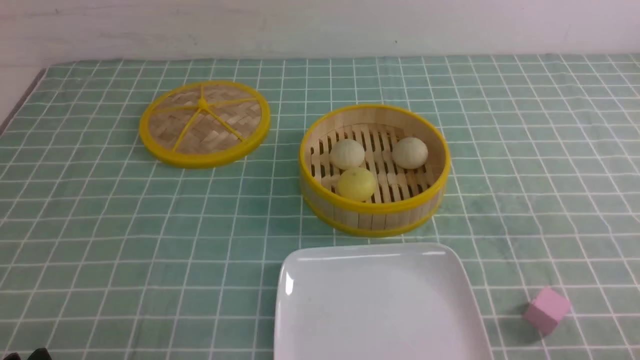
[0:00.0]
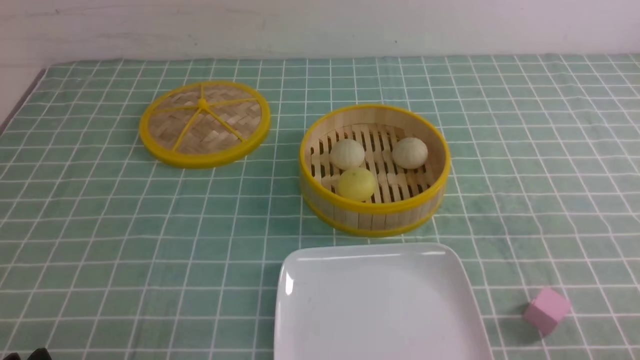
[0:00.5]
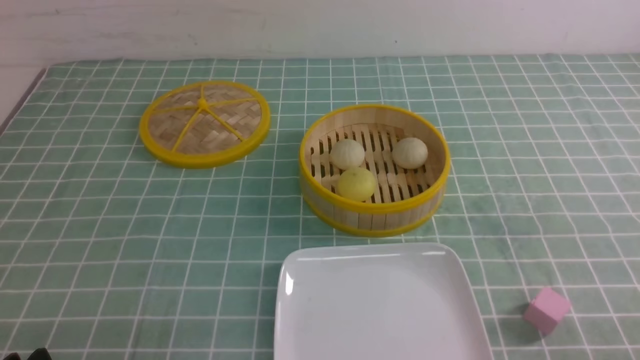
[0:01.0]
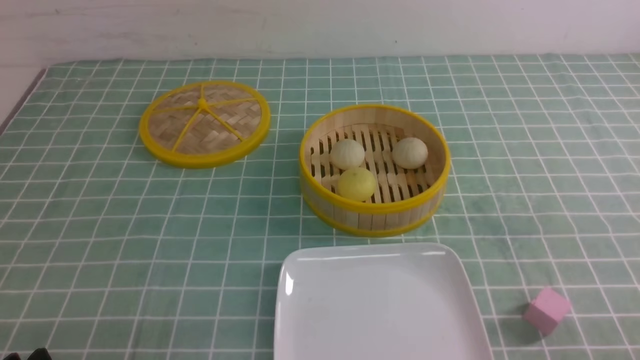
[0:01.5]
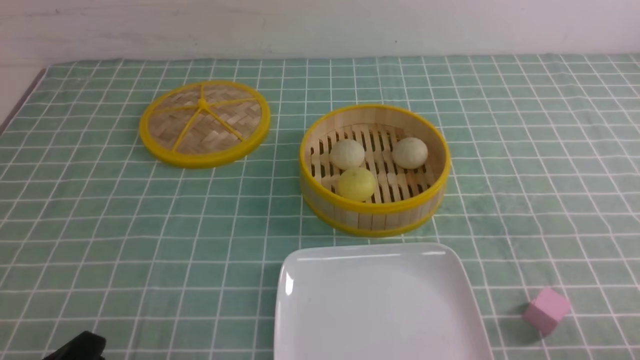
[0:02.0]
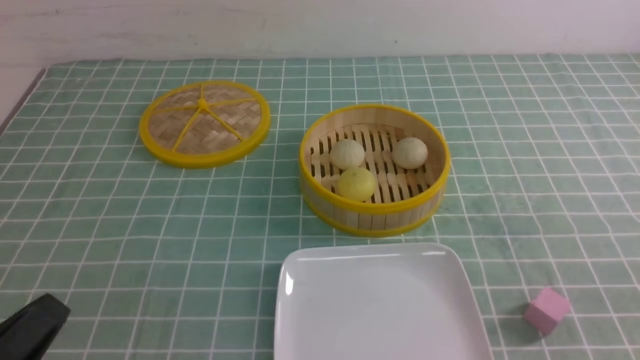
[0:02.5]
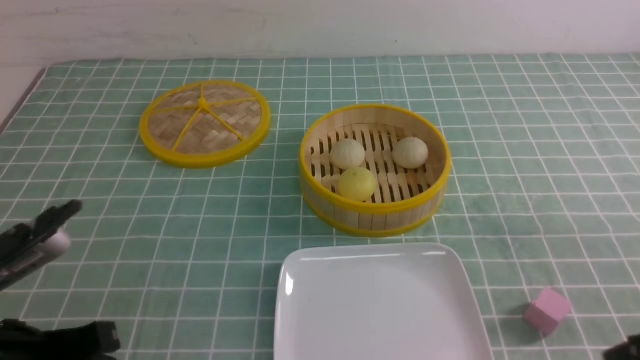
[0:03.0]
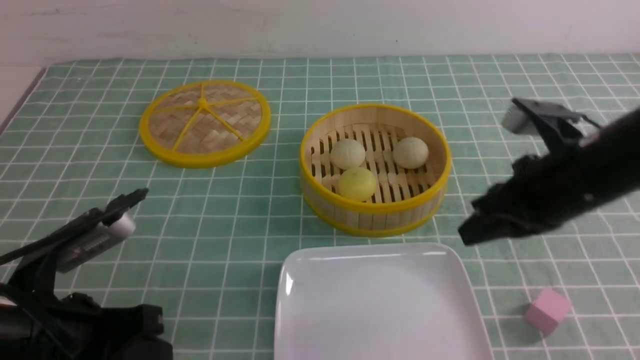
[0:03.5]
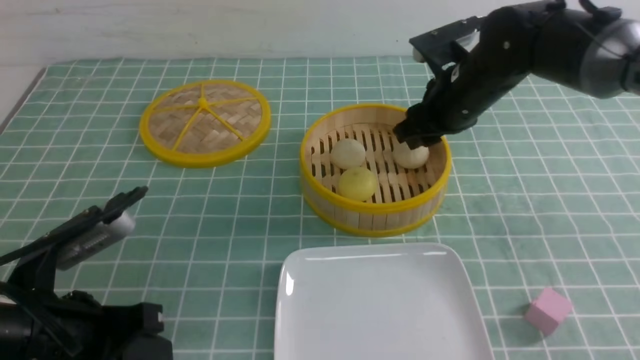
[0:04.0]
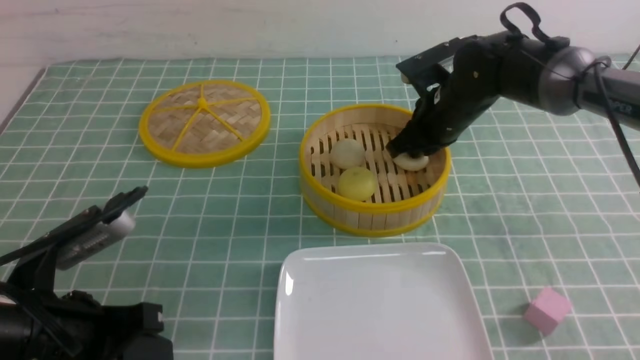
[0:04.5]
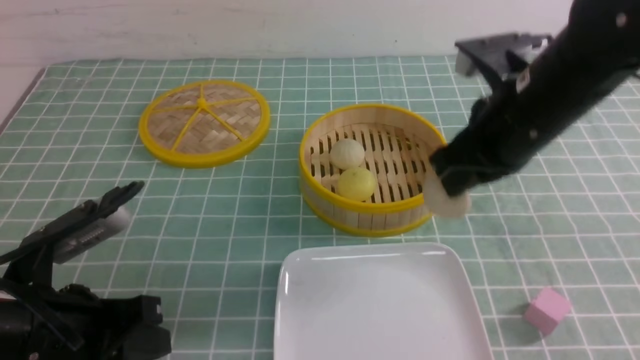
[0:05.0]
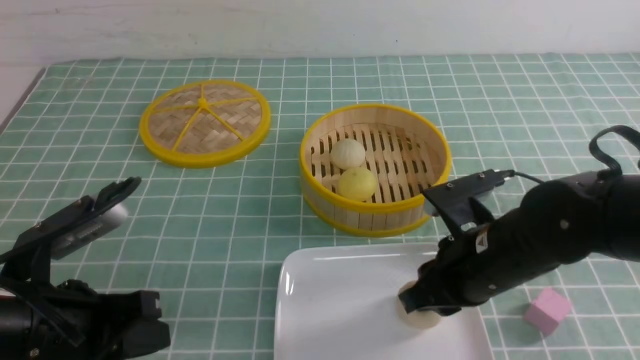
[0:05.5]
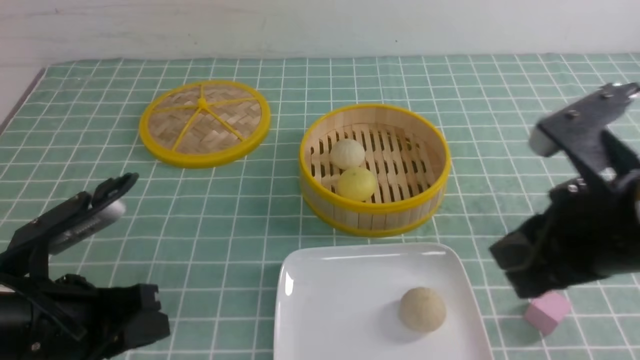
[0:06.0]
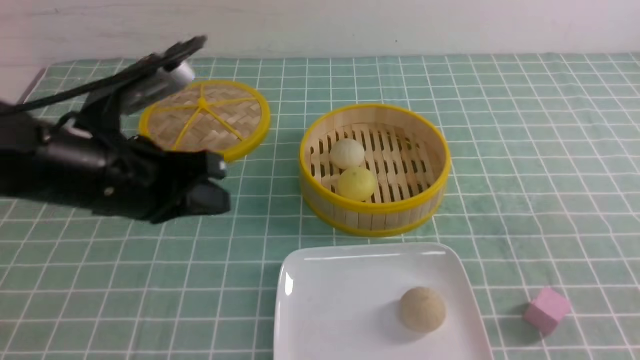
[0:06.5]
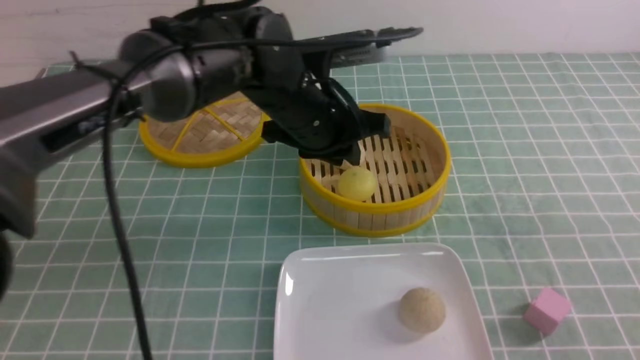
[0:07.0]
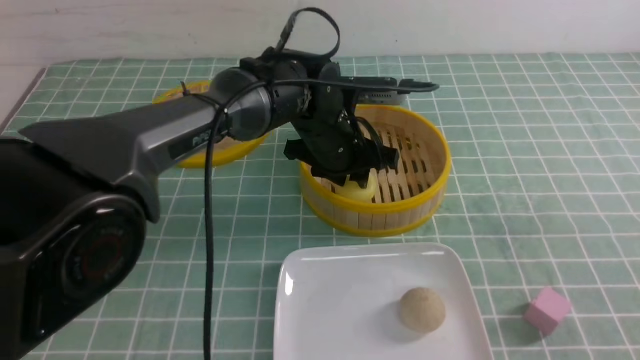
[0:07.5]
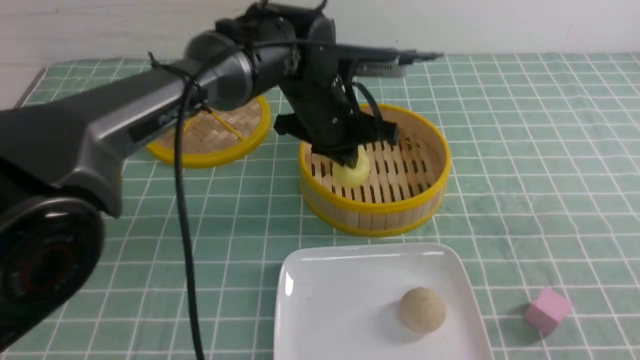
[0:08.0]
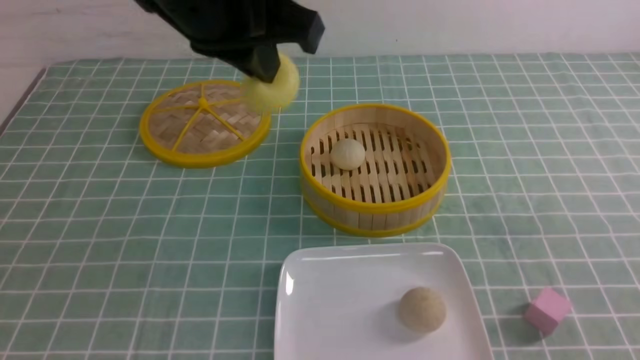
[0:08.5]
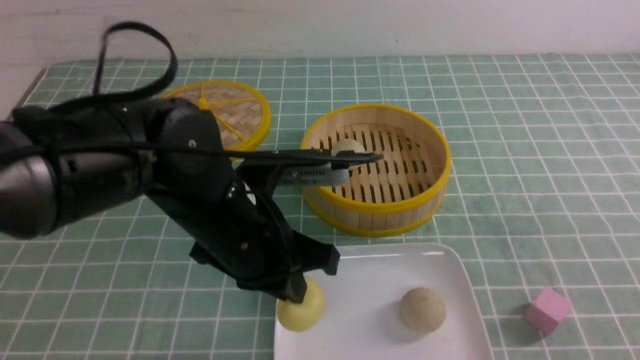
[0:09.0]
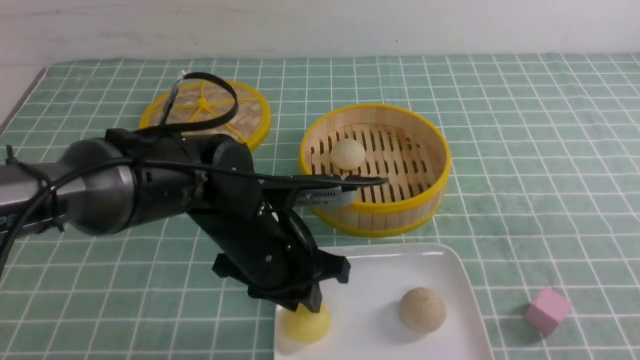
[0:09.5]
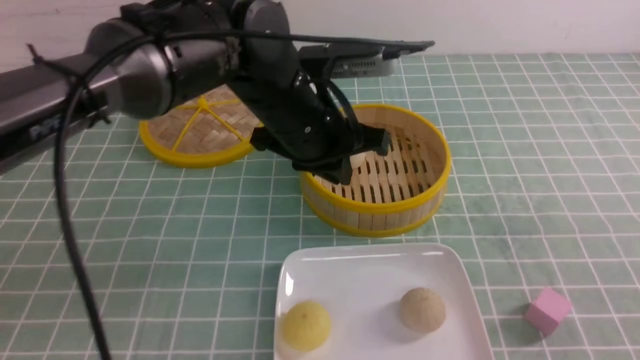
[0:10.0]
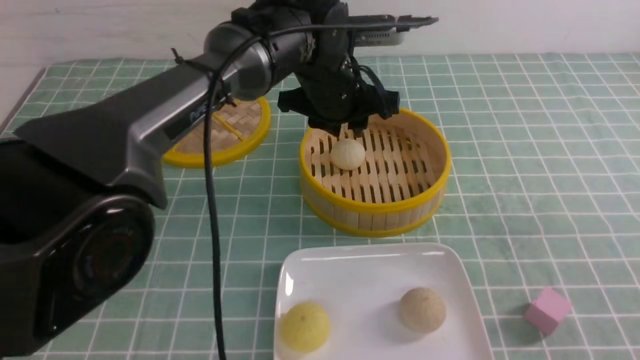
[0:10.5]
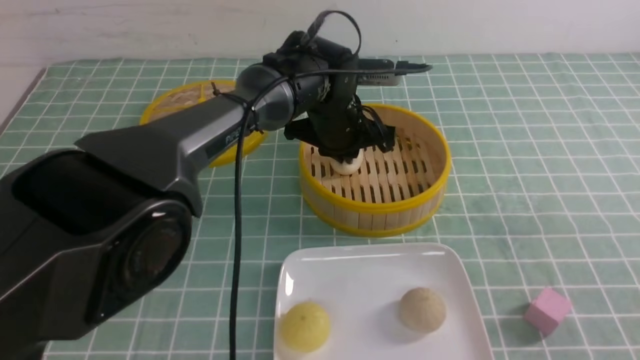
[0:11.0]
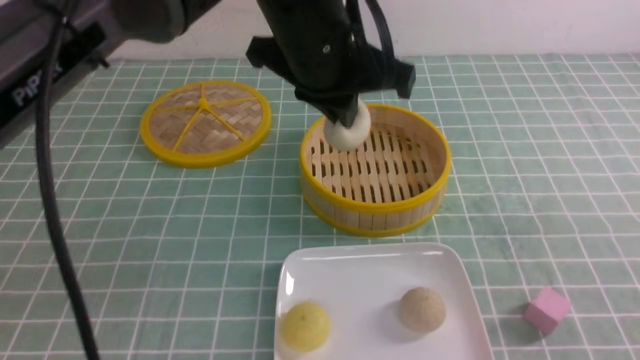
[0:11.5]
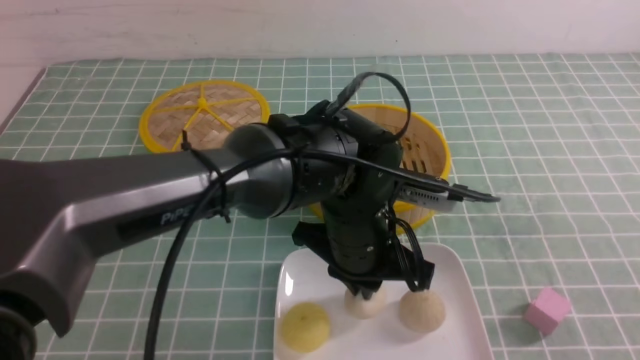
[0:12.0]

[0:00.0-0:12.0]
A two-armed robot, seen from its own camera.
Step, 0:00.0 to 0:04.5: use the right arm to grab the steamed stuffed bun that is closest to it.
Step, 0:05.0 to 0:05.5: use the right arm to put the steamed stuffed bun into the plate.
Step, 0:06.0 to 0:07.5: use the left arm to grab the steamed stuffed bun that is closest to it.
Step, 0:08.0 to 0:09.5: use the left arm to put the steamed stuffed bun into the plate.
Step, 0:10.0 to 0:11.0: use the left arm to grab the steamed stuffed bun that is closest to it.
0:02.0 to 0:04.0: The right gripper goes some 40 cm forward and to the left, and closes, then opens again; the left gripper is displaced forward by some 10 cm, and closes up.
0:04.0 to 0:06.0: The right gripper shifts roughly 25 cm backward, and closes.
0:06.0 to 0:08.0: The left gripper shifts approximately 30 cm to the right and forward; the right gripper shifts roughly 15 cm backward and to the right, and closes its fingers.
0:08.0 to 0:10.0: The left gripper swings up and down, some 20 cm each way, with 2 reversals.
0:10.0 to 0:12.0: The left gripper heads backward and downward, covering approximately 10 cm.

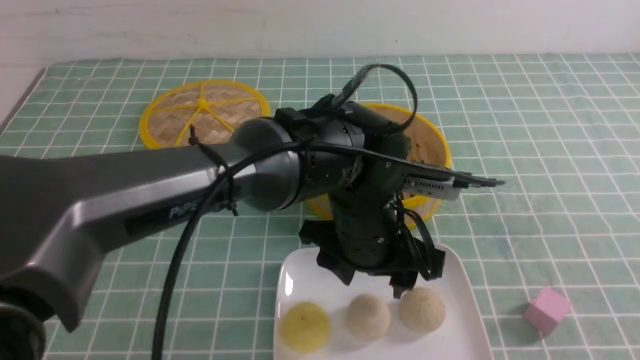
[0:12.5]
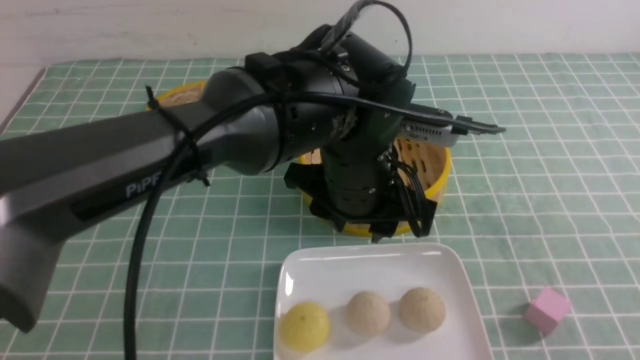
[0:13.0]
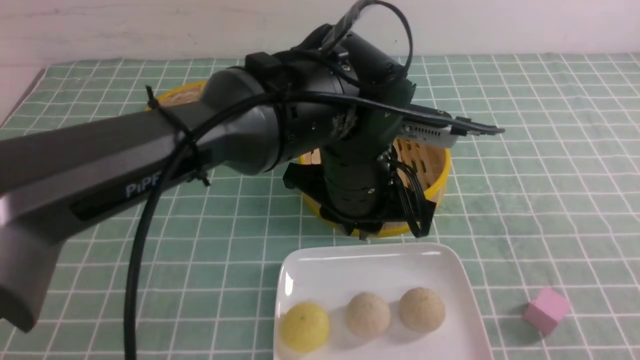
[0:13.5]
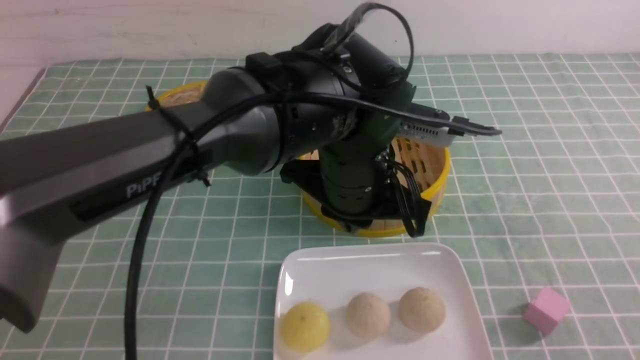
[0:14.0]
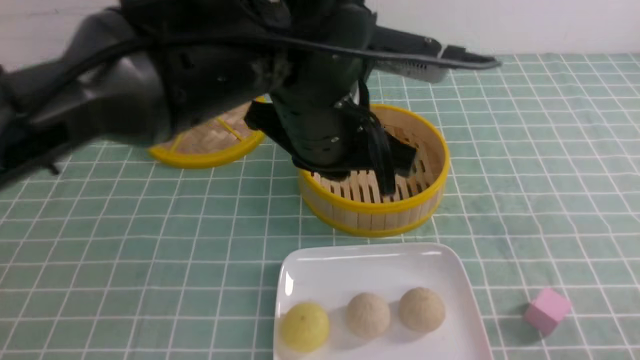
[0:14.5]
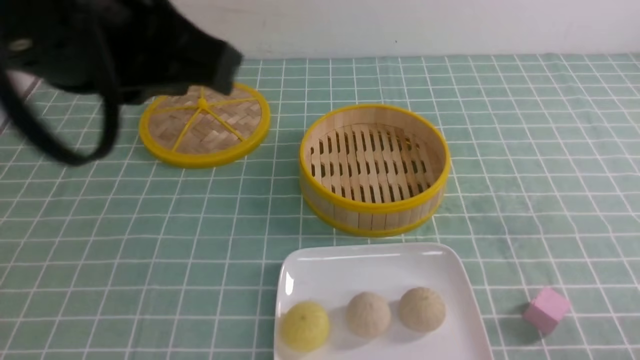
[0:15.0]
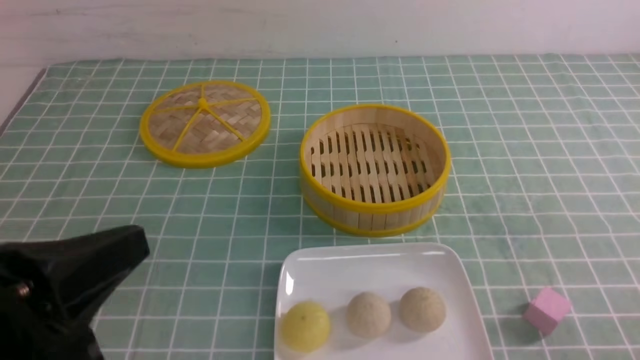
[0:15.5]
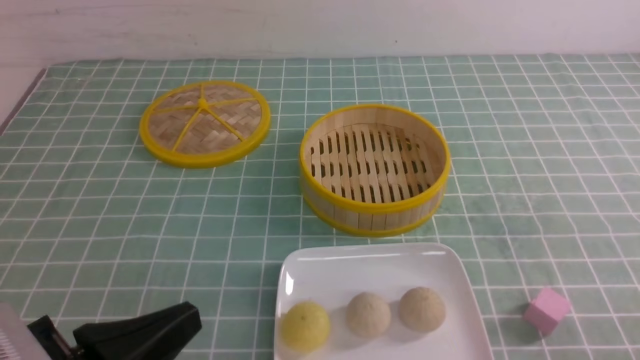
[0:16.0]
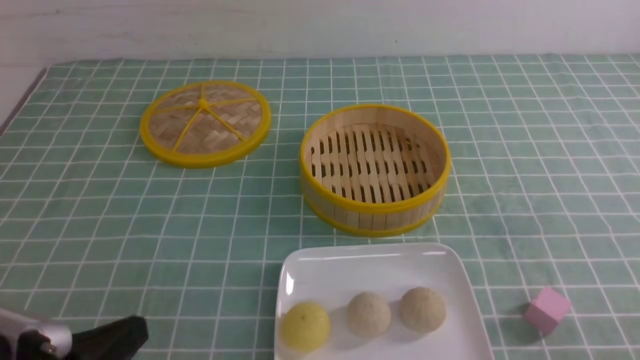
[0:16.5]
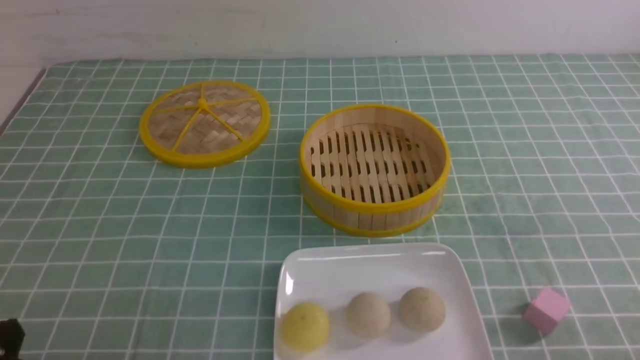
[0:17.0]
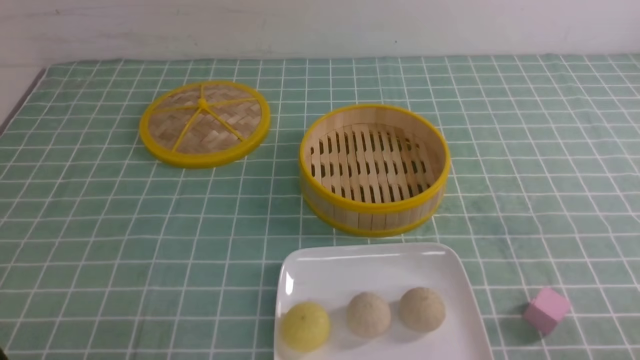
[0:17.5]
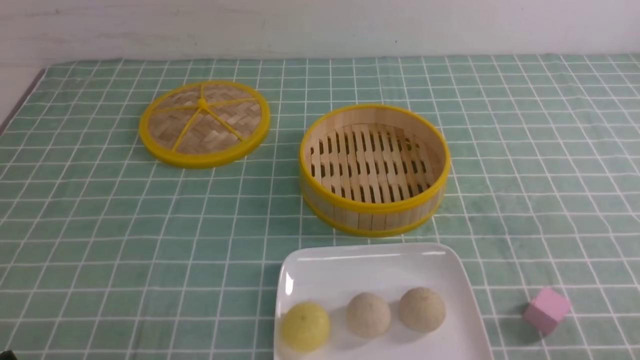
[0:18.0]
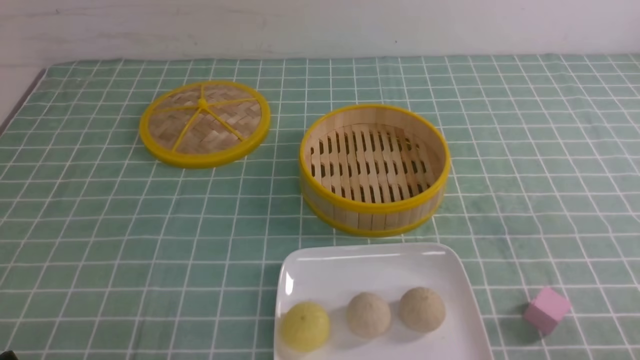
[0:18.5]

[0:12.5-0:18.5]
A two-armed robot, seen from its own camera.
0:12.5 to 0:14.5: The left gripper shifts approximately 15 cm upward, and closes up. Meanwhile the right gripper is displaced downward by approximately 15 cm.
0:14.5 to 0:16.5: The left gripper shifts approximately 30 cm to the left, backward and downward.
0:16.5 to 0:18.5: The left gripper shifts roughly 5 cm downward.

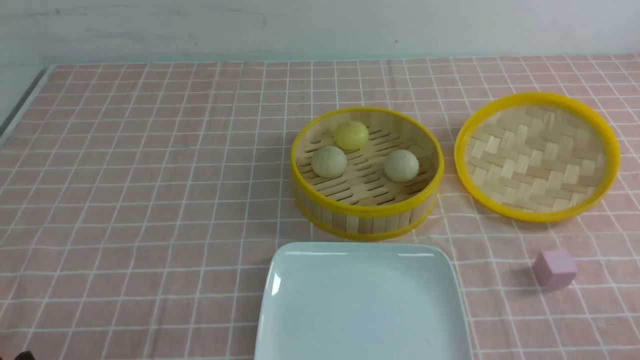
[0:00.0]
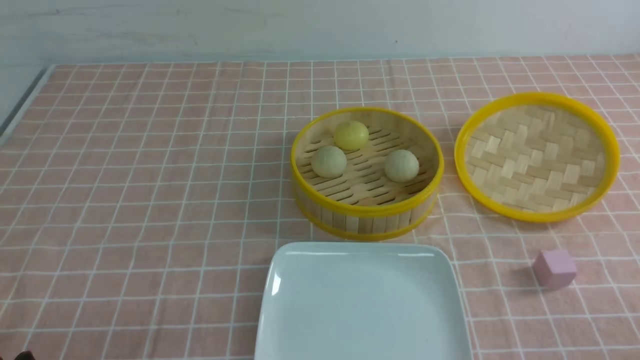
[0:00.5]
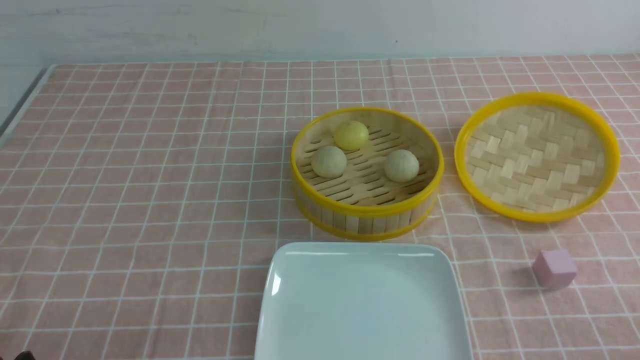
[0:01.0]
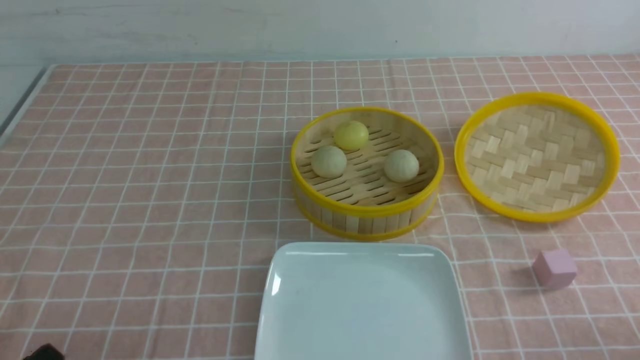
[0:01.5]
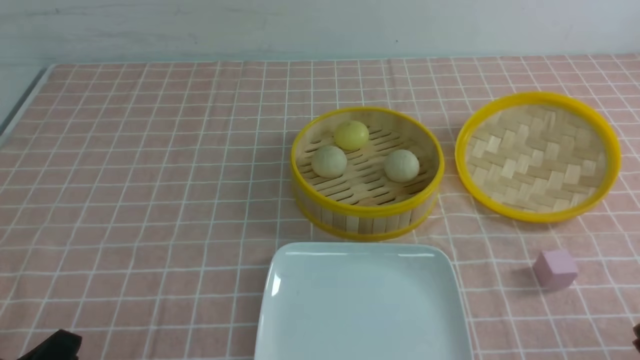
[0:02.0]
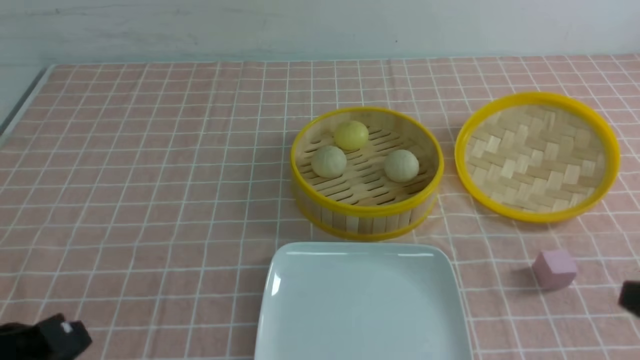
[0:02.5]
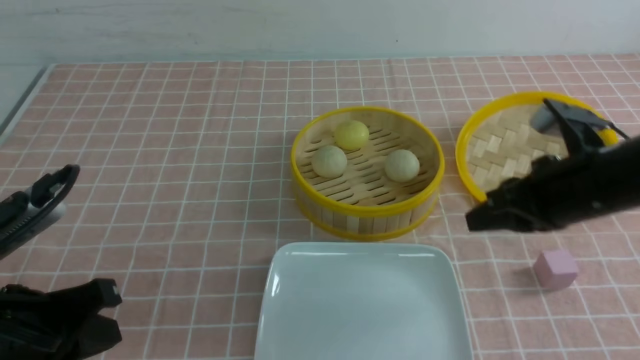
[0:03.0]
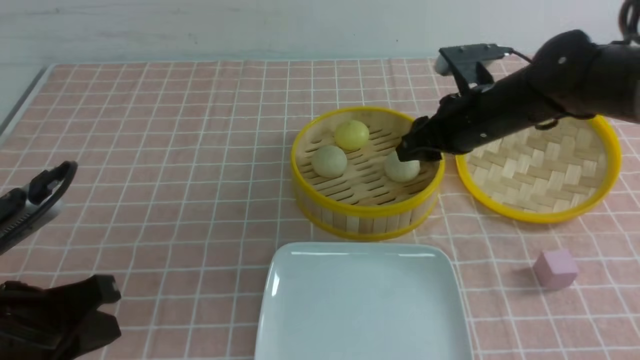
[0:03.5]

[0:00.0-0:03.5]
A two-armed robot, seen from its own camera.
0:02.0 to 0:03.5: The right gripper is displaced forward by roughly 35 cm, and opens, while the left gripper travels forward by about 10 cm, and closes its fingers.
